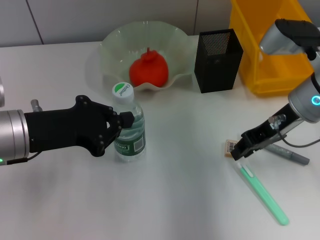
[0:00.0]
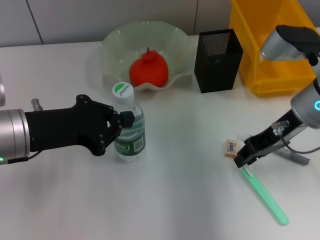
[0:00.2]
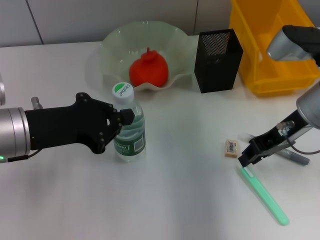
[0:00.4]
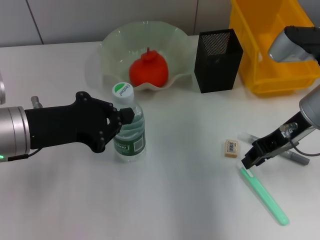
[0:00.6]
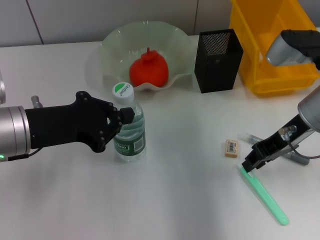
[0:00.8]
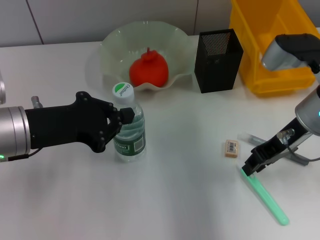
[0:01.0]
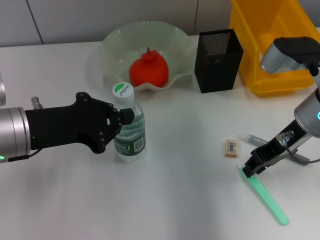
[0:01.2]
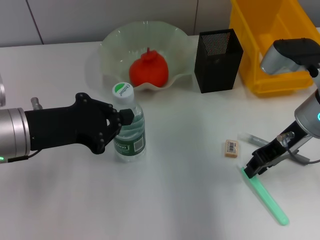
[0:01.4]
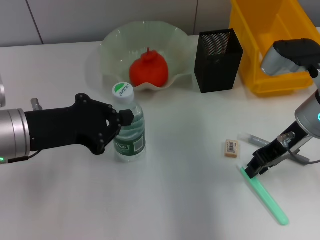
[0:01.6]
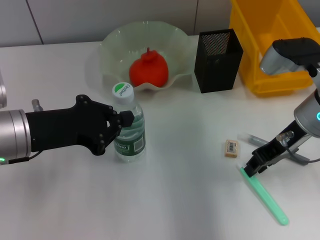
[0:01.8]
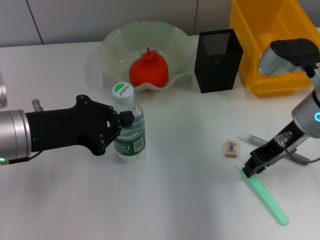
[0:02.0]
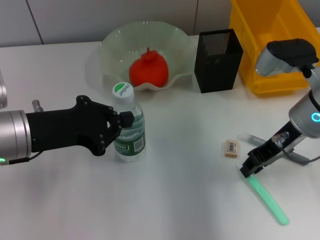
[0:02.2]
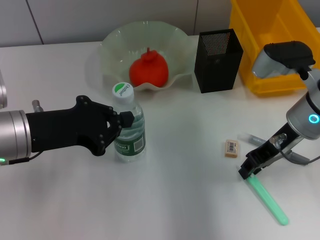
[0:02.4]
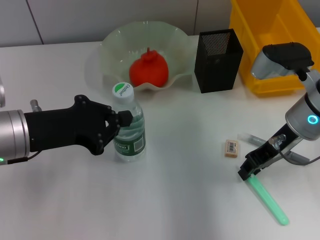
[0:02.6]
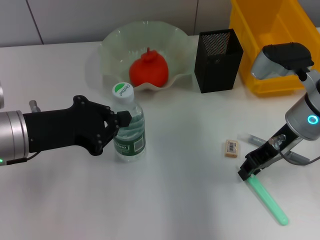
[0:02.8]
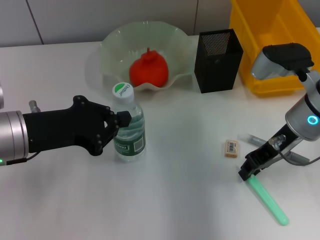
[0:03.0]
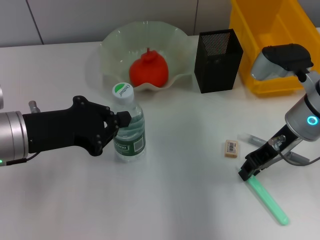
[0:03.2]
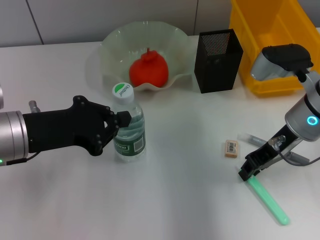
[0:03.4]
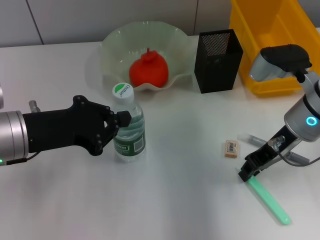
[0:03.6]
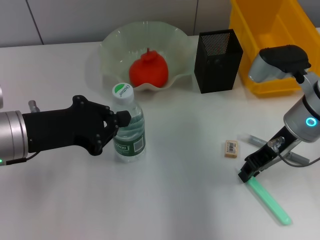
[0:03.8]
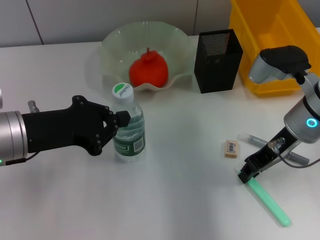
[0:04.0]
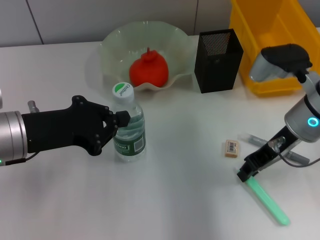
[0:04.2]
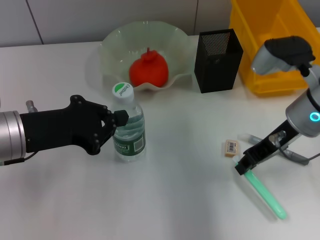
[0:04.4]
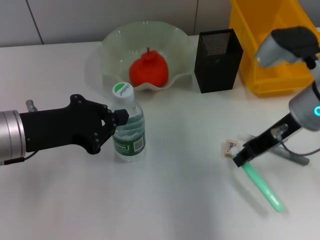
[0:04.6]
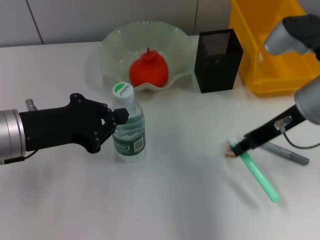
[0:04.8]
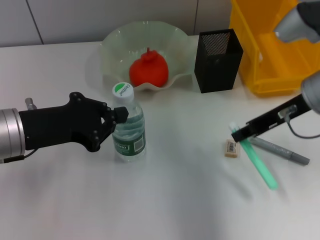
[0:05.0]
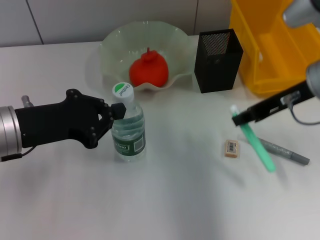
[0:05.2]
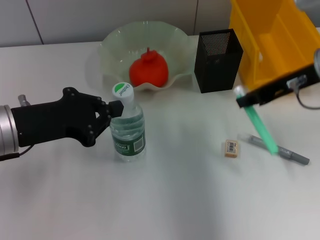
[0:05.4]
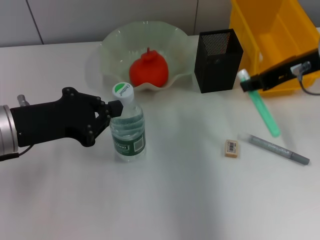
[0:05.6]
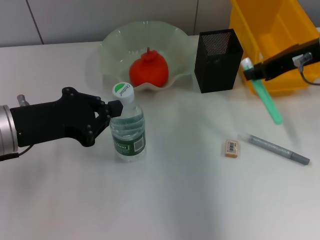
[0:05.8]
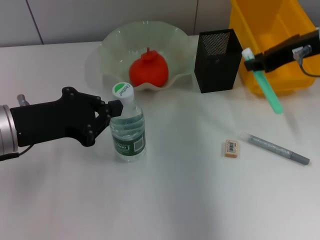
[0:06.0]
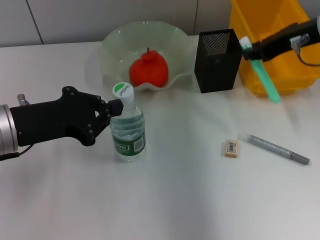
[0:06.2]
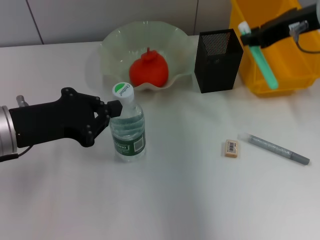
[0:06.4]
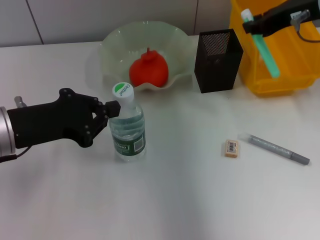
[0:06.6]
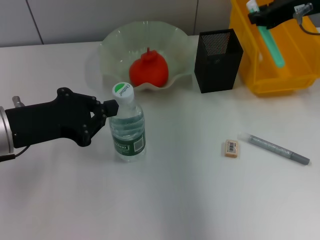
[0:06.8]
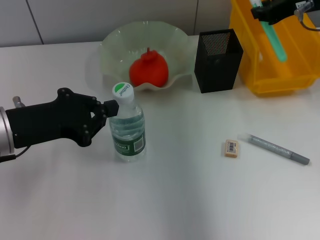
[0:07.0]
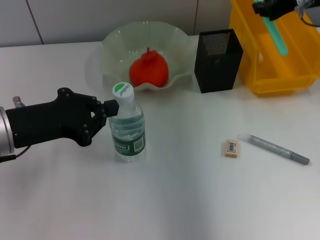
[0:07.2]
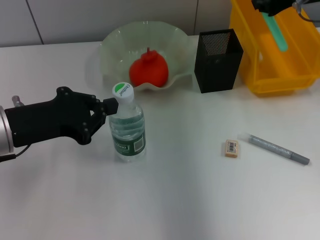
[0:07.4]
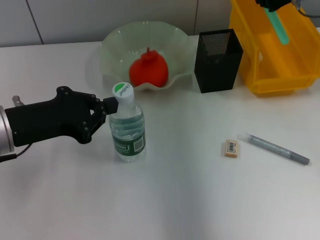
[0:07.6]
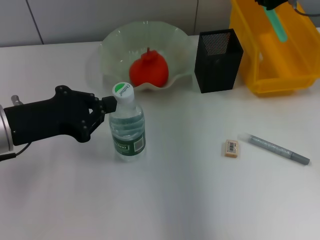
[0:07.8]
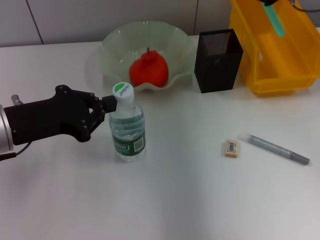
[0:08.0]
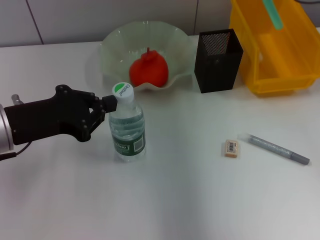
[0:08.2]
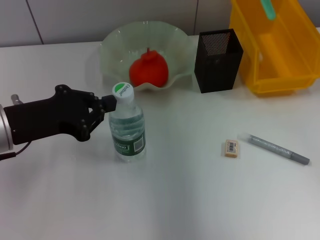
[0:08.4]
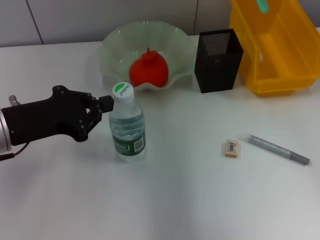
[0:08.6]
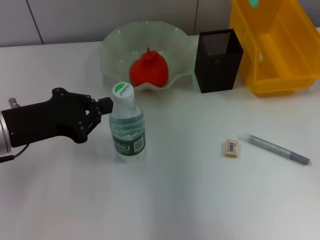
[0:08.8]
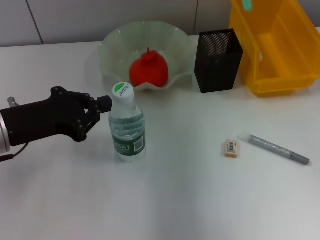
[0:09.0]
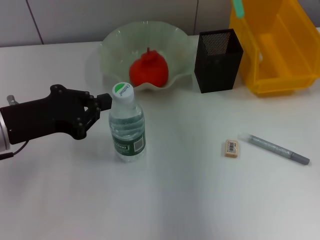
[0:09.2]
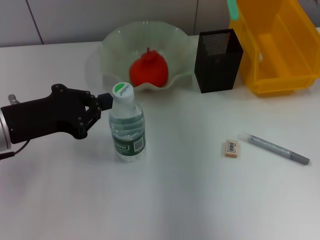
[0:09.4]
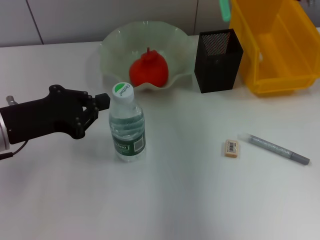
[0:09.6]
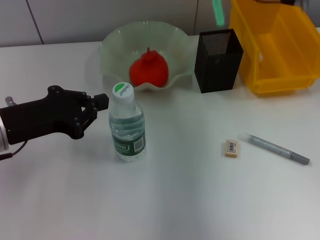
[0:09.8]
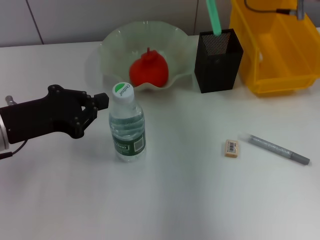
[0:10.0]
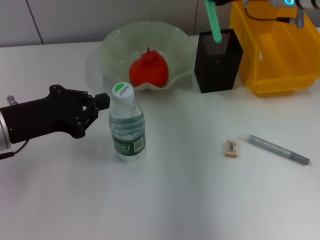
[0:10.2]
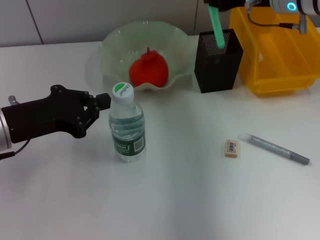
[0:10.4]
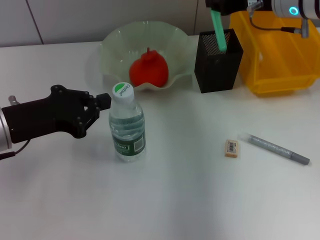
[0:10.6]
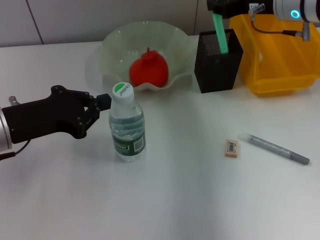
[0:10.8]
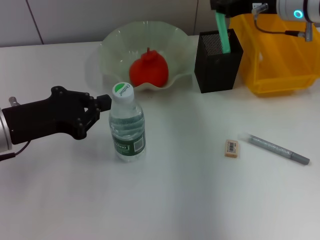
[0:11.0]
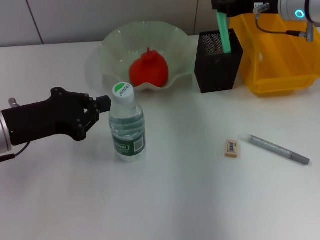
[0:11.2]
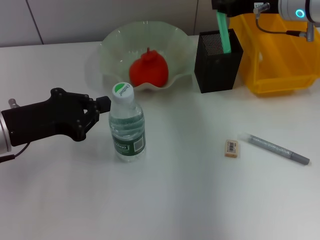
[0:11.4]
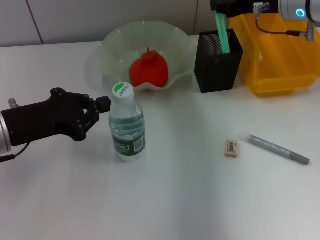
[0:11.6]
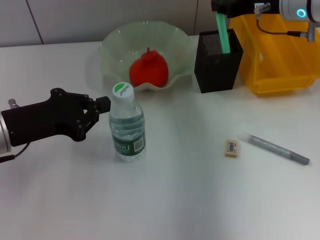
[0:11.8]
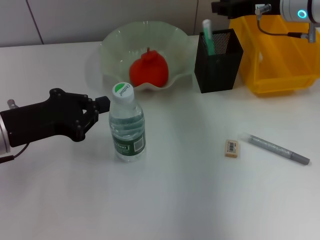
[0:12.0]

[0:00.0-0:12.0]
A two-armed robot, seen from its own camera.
Step, 0:00.0 to 0:03.8: Grab the blue utility knife with the right hand.
0:00.0 to 0:01.6: The grippers make only small movements.
0:01.6 to 0:03.0: The two grippers keep their place.
0:03.0 to 0:04.4: Both grippers stay about where they are.
0:04.4 to 0:06.0: The right gripper travels upward by some 10 cm.
0:06.0 to 0:07.6: The right gripper goes about 5 cm forward.
0:07.6 to 0:09.0: The grippers move only a little.
0:09.0 to 0:10.4: The right gripper heads downward, covering about 5 cm.
0:10.4 to 0:12.0: The grippers stay close to where they were, moving slightly.

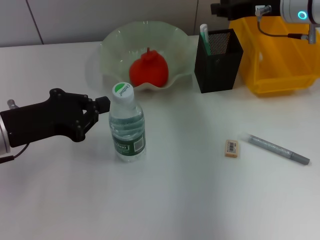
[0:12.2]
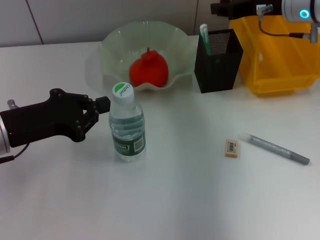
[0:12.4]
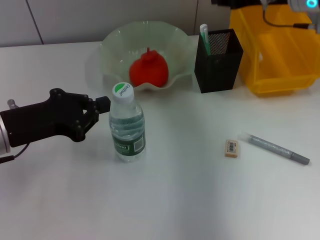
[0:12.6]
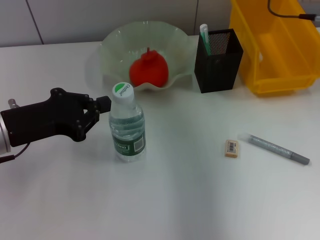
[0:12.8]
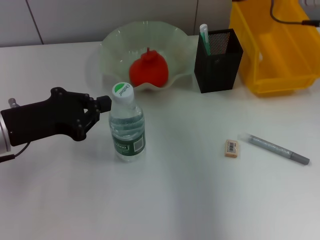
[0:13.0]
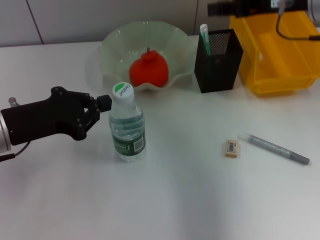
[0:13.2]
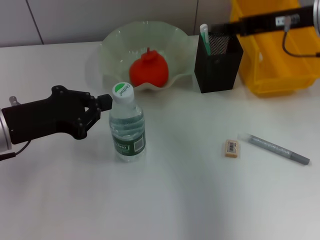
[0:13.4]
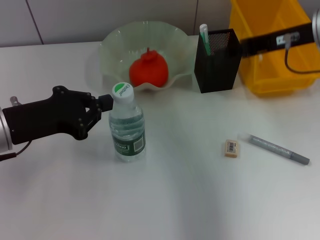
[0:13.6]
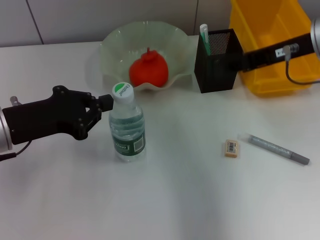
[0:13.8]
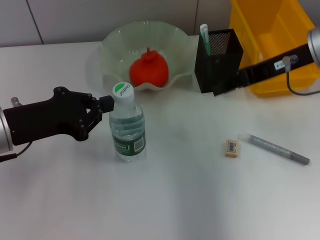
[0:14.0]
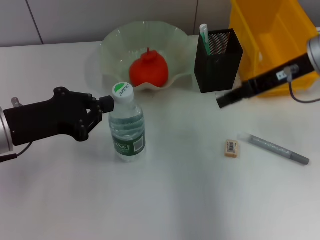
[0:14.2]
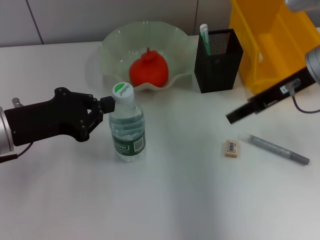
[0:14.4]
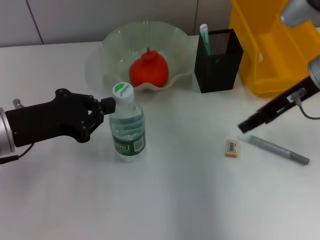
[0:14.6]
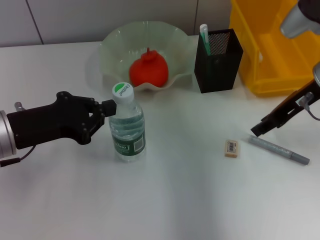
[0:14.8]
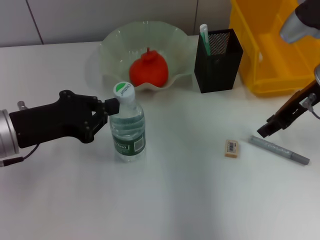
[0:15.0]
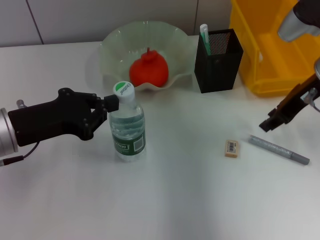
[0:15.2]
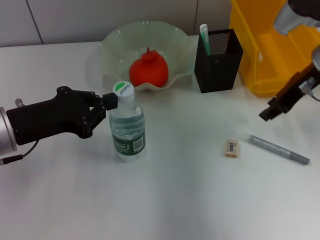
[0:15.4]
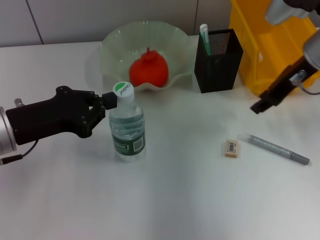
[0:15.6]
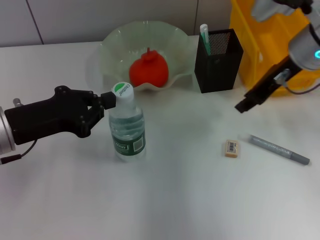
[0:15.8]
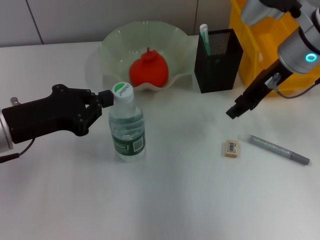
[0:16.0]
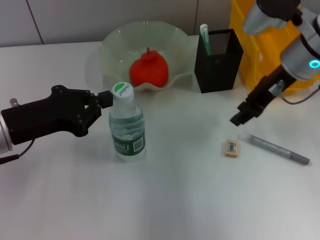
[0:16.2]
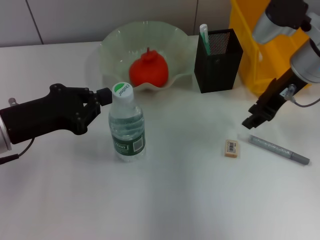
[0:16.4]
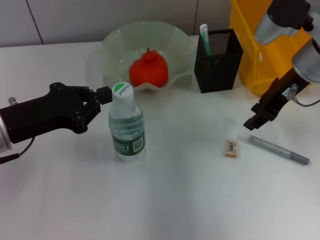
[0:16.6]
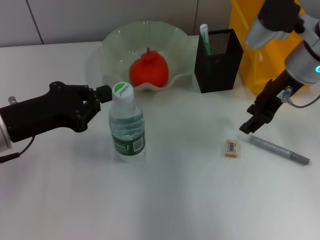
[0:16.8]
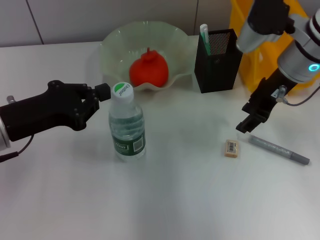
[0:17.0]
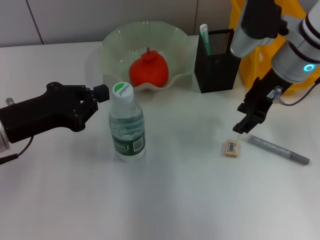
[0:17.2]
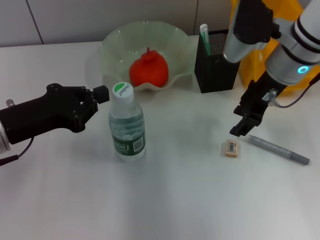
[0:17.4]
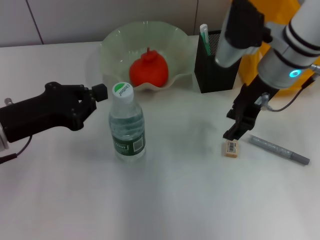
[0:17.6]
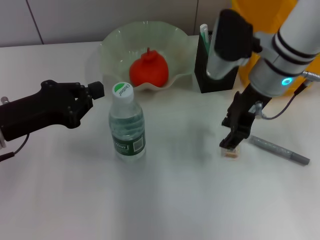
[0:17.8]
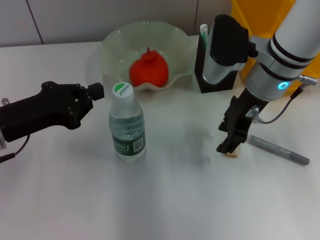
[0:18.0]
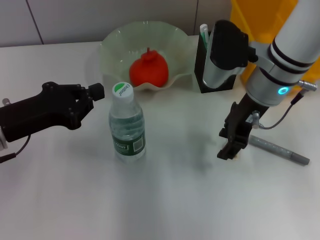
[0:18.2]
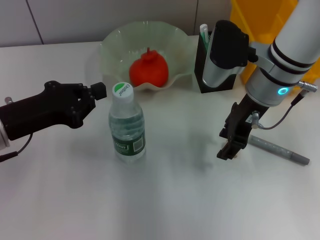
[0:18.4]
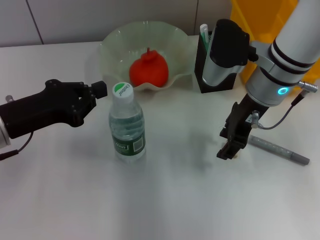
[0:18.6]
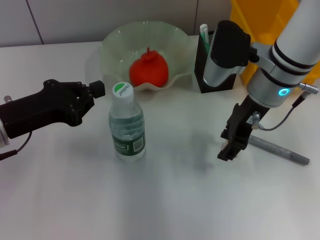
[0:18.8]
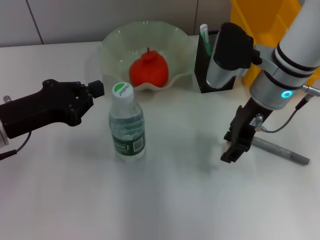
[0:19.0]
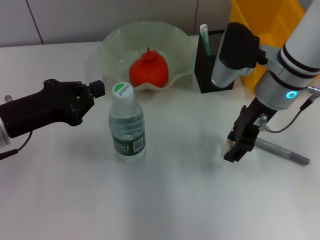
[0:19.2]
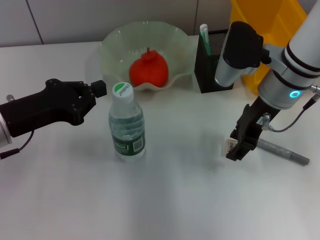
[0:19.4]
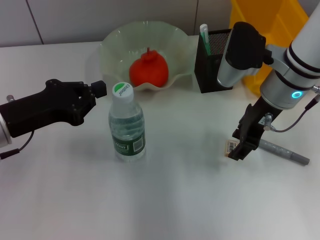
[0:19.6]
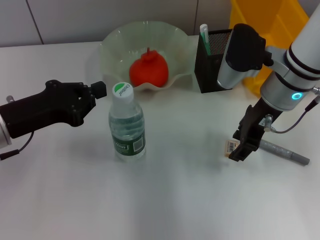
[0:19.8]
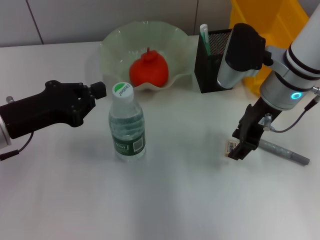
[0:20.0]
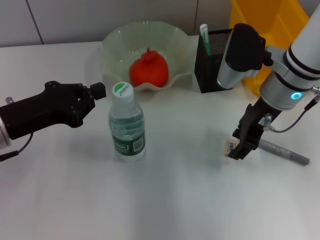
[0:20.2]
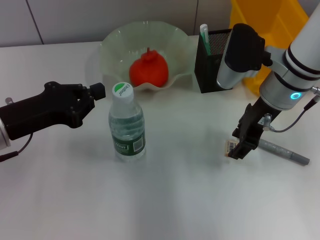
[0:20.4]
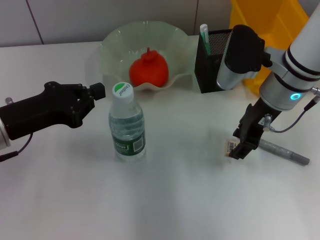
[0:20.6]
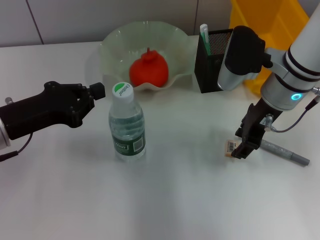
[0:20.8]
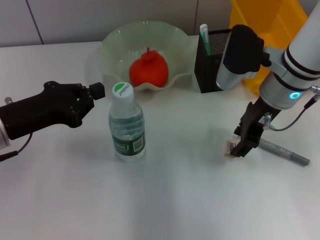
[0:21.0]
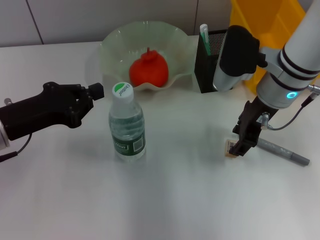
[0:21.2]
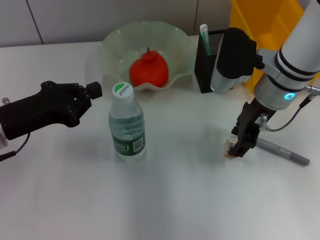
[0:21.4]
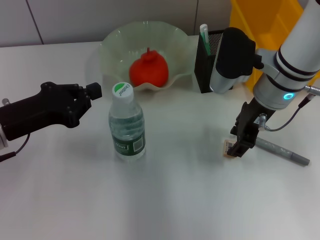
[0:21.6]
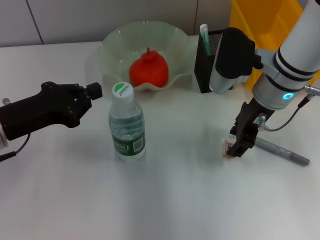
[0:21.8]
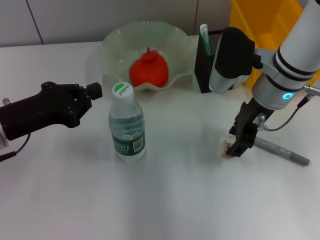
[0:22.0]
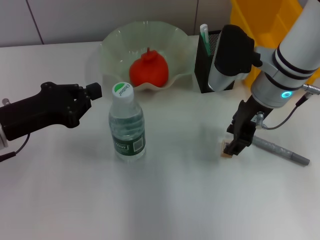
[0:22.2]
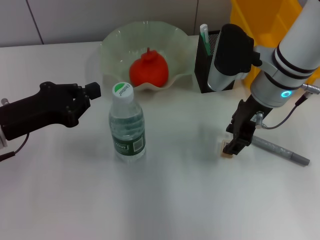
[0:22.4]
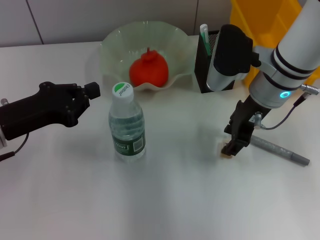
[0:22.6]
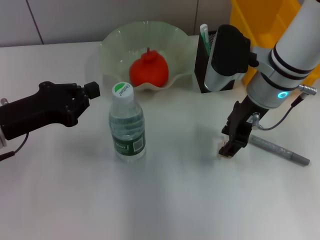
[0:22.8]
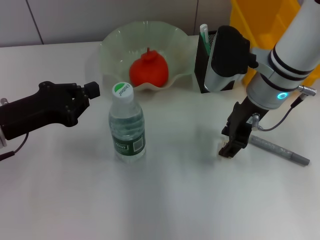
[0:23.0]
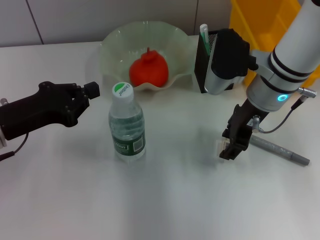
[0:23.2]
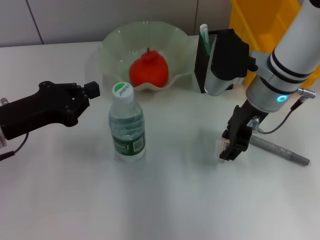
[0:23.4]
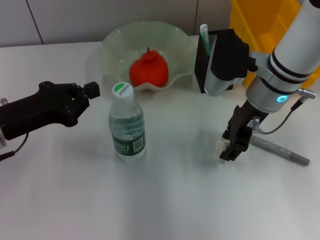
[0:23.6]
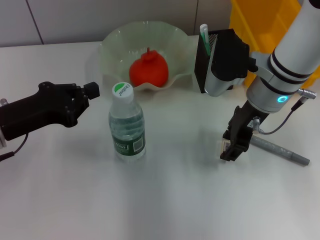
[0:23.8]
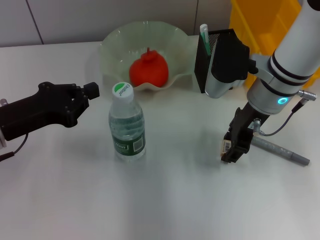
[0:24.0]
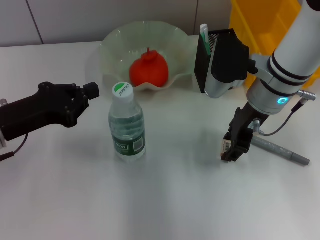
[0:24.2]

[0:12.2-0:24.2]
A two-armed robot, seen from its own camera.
0:12.2 to 0:13.8: The right gripper heads backward, covering roughly 10 cm.
0:13.8 to 0:15.2: The right gripper changes place by approximately 5 cm.
0:15.2 to 0:16.6: The grippers move only a little.
0:16.6 to 0:18.2: The right gripper shifts some 5 cm to the left.
0:18.2 to 0:19.8: The grippers stay close to where they were, moving slightly.
0:19.8 to 0:21.2: Both grippers stay put.
0:21.2 to 0:24.2: The two grippers keep their place.
